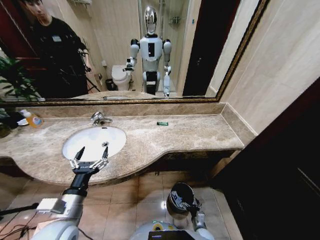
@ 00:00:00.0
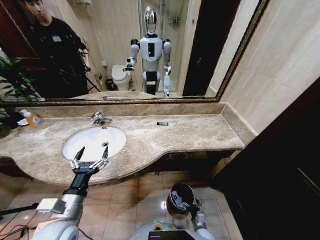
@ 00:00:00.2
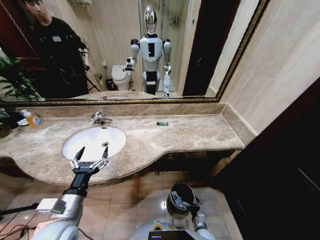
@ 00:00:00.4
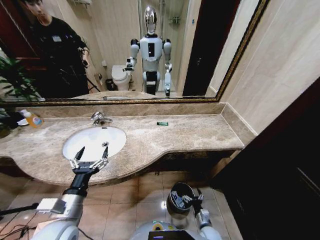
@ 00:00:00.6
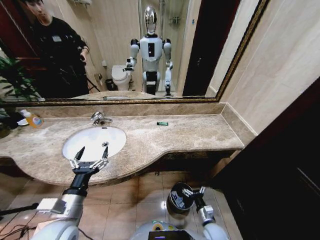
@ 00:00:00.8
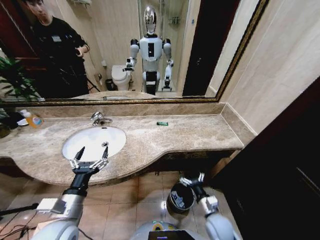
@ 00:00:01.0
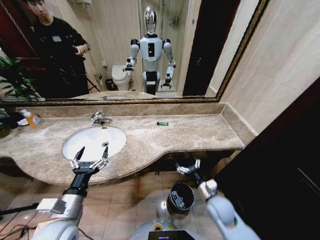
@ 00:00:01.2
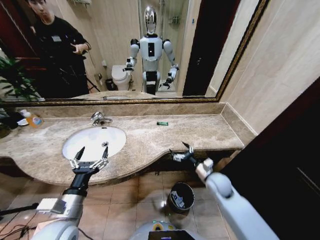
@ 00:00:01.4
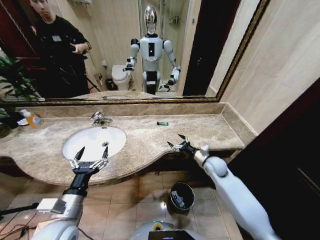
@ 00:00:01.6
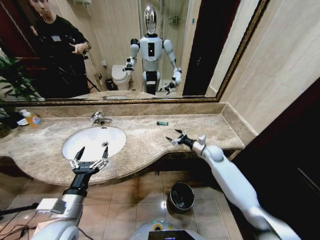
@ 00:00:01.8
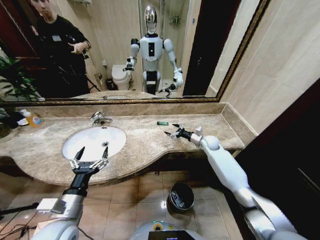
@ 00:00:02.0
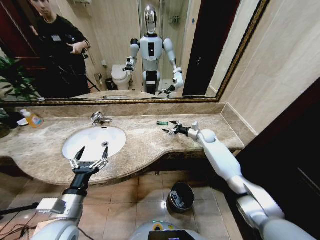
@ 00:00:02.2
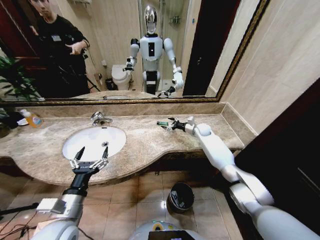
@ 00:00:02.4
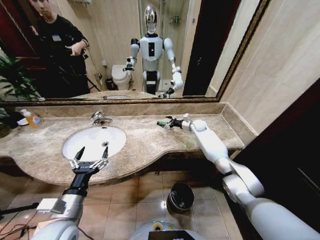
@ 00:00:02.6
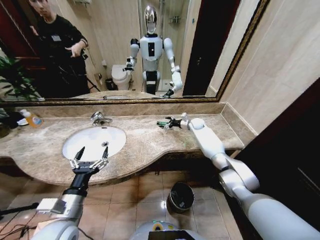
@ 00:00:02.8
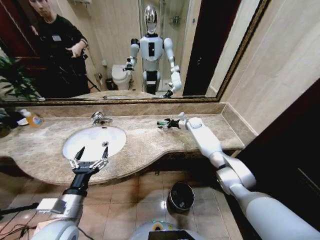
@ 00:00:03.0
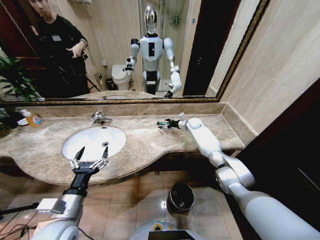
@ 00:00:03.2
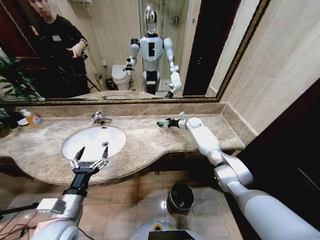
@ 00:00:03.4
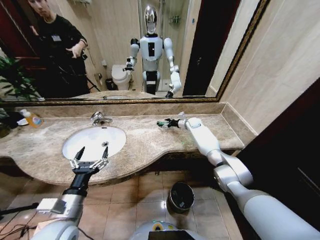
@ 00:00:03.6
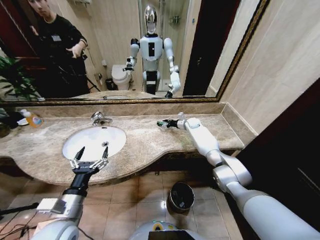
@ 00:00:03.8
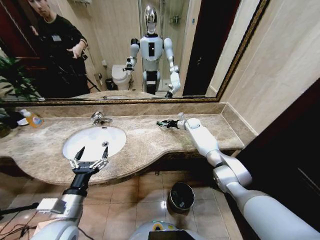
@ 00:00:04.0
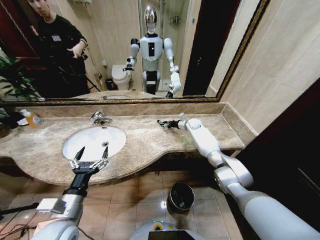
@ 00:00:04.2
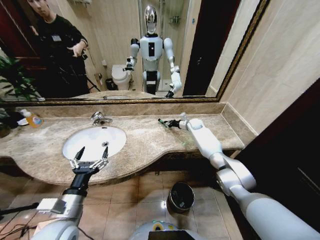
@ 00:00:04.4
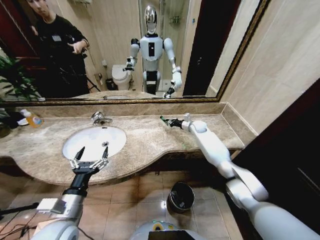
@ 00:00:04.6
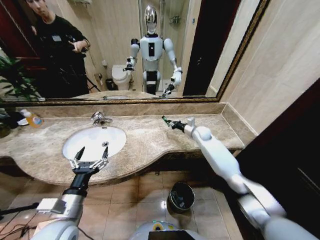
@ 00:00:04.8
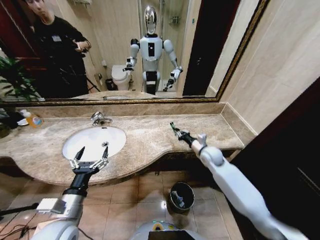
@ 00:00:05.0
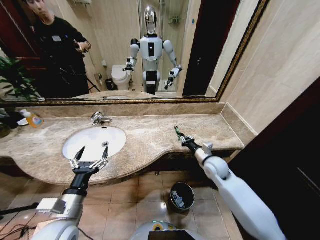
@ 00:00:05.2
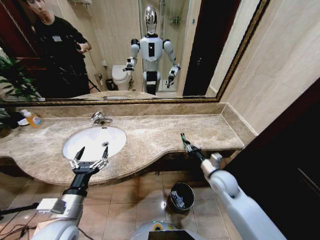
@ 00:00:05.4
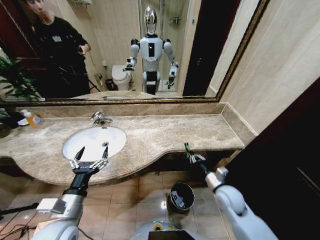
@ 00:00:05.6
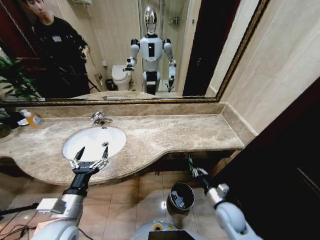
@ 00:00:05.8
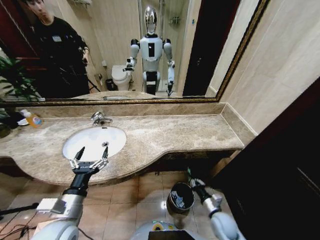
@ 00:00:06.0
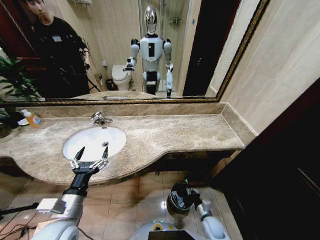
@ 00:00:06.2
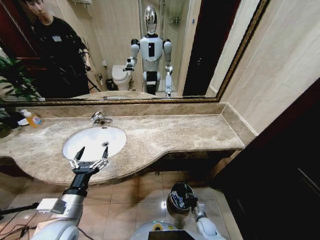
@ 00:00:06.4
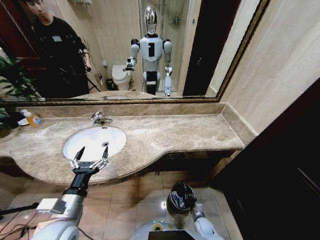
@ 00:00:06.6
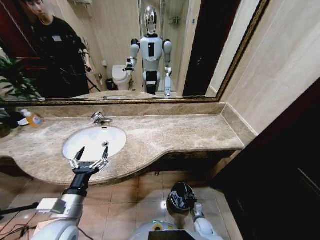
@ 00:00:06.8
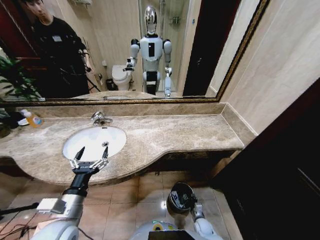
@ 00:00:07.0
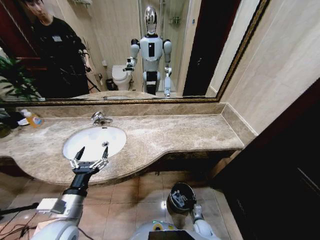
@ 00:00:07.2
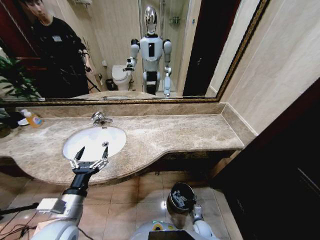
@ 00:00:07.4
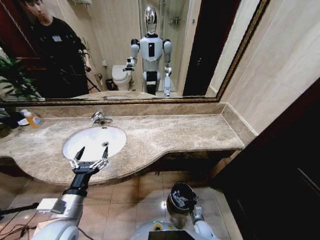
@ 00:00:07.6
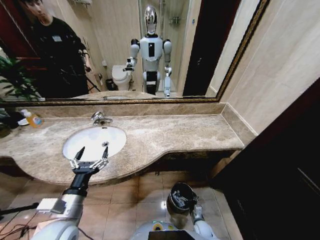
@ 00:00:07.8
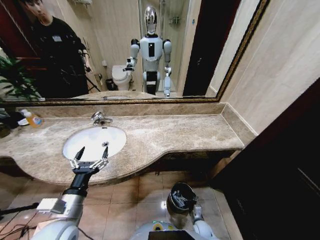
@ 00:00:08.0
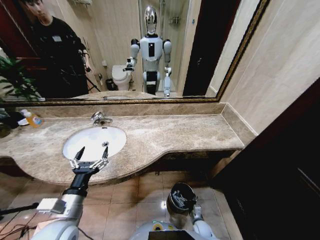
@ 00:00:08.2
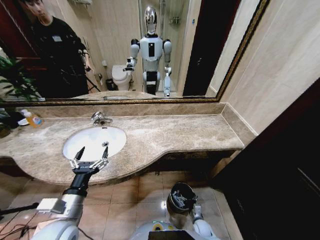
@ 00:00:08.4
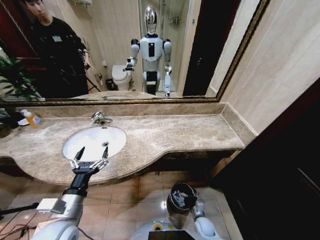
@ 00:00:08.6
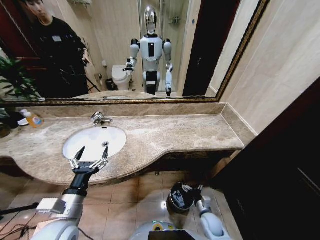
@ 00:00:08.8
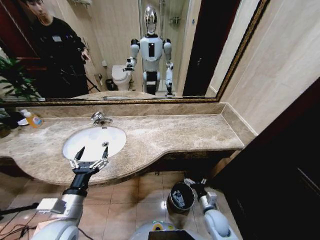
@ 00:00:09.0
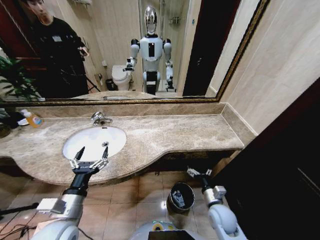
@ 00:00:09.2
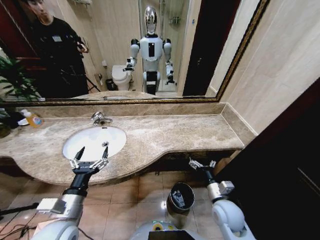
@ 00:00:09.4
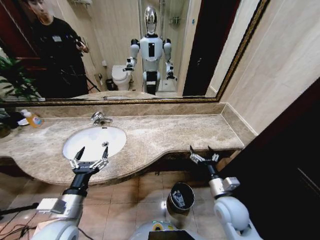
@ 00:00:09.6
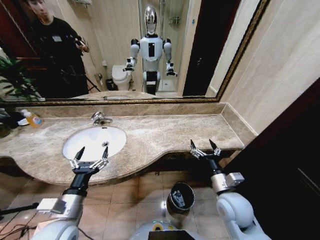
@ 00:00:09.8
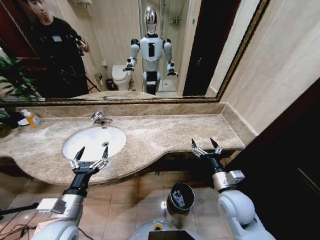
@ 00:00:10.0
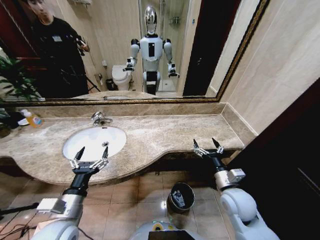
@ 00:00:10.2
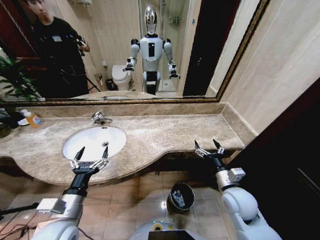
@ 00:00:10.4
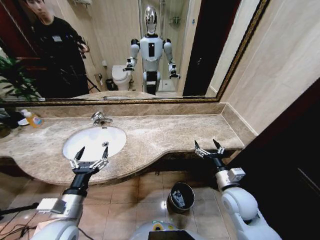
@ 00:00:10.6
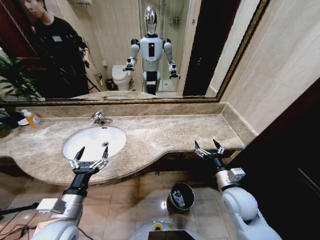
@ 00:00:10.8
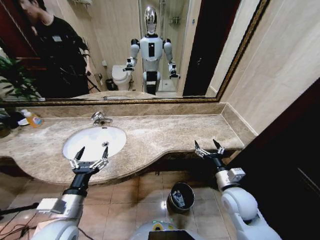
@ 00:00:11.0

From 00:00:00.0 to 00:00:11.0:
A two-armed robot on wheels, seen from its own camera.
Task of the whole recording: Pick up the trash from the sink and place it in the trash bin.
From 00:00:00.0 to 00:00:01.6: The right gripper shifts roughly 40 cm upward and forward.
From 00:00:01.6 to 00:00:03.2: The right gripper travels forward by about 25 cm.
From 00:00:03.2 to 00:00:04.8: The right gripper heads backward, covering approximately 10 cm, and closes its fingers.
From 00:00:04.8 to 00:00:06.2: The right gripper is displaced backward and downward by about 50 cm.
From 00:00:06.2 to 00:00:07.8: The right gripper goes about 10 cm downward, and opens up.
From 00:00:07.8 to 00:00:09.4: The right gripper moves upward, some 30 cm.
From 00:00:09.4 to 00:00:11.0: The right gripper moves upward, about 5 cm.

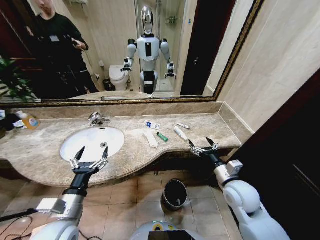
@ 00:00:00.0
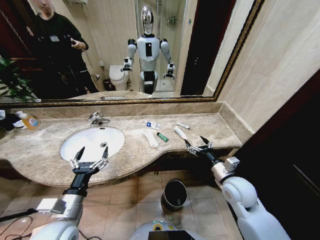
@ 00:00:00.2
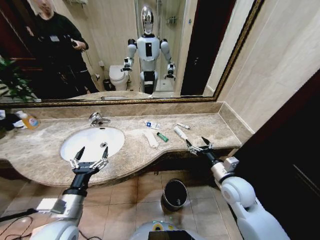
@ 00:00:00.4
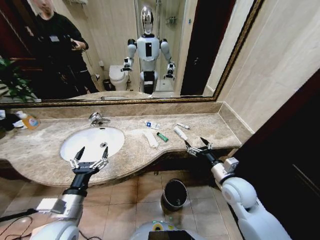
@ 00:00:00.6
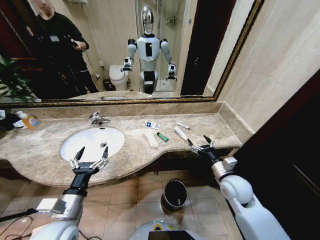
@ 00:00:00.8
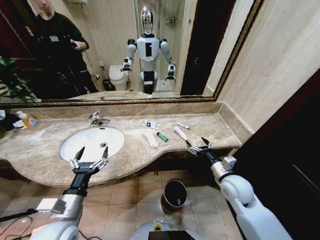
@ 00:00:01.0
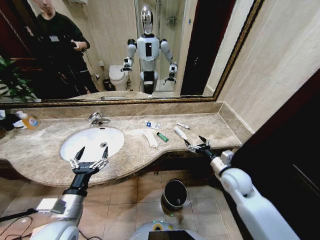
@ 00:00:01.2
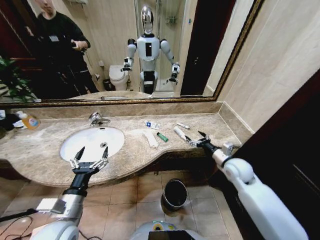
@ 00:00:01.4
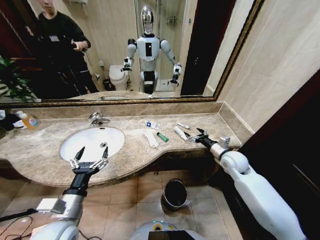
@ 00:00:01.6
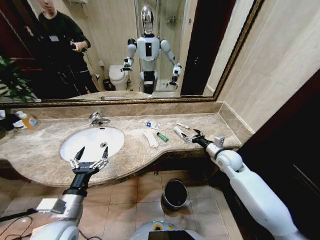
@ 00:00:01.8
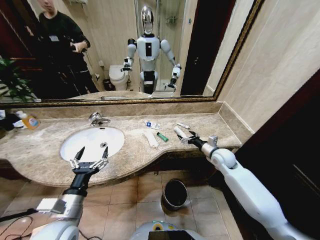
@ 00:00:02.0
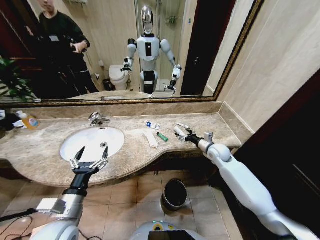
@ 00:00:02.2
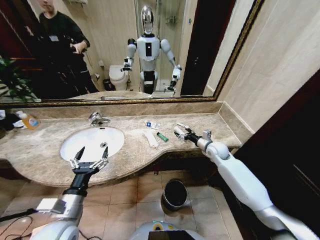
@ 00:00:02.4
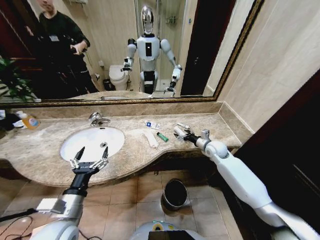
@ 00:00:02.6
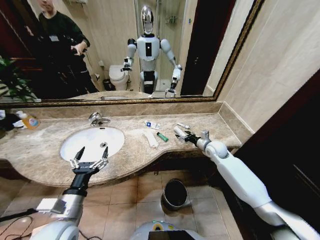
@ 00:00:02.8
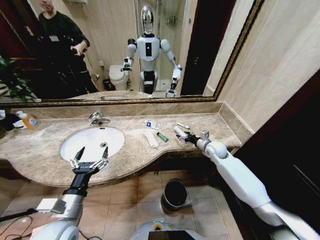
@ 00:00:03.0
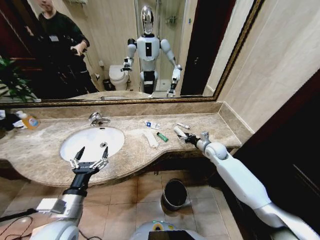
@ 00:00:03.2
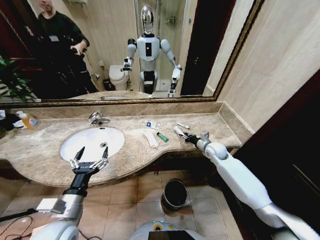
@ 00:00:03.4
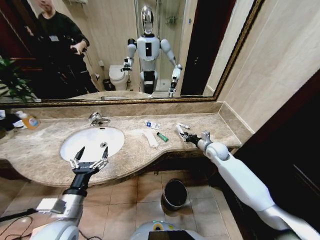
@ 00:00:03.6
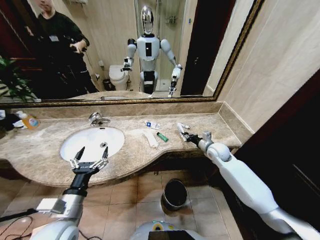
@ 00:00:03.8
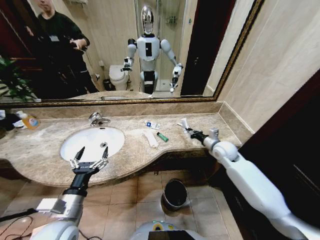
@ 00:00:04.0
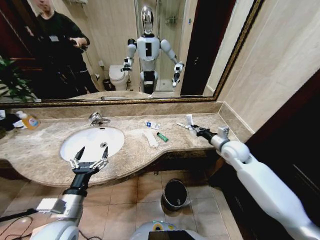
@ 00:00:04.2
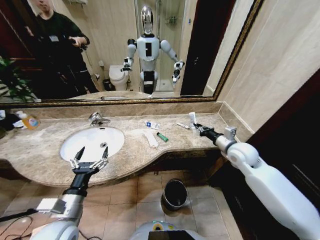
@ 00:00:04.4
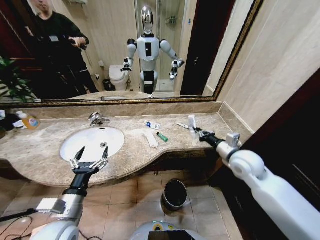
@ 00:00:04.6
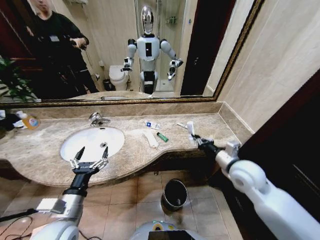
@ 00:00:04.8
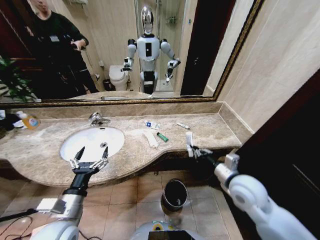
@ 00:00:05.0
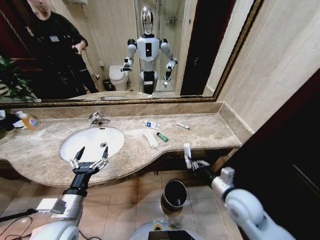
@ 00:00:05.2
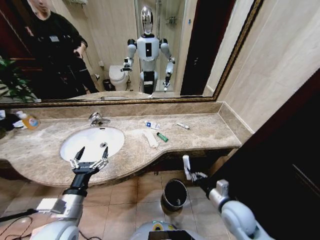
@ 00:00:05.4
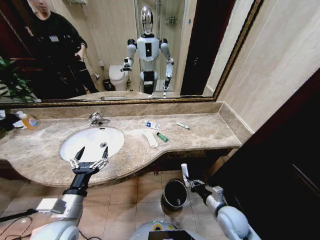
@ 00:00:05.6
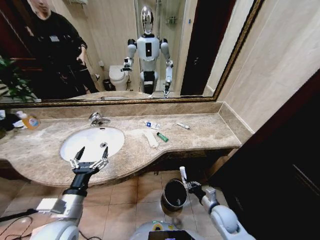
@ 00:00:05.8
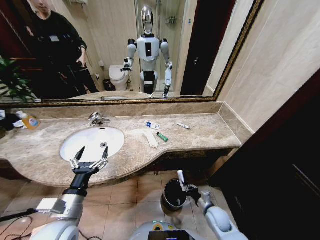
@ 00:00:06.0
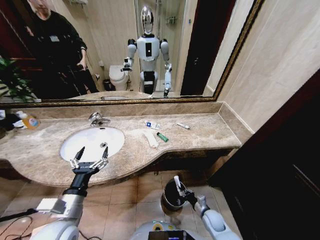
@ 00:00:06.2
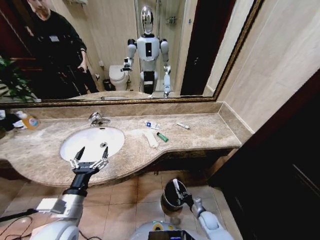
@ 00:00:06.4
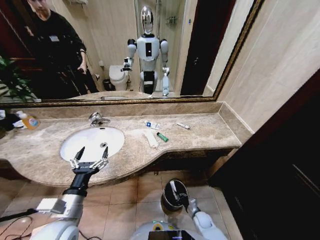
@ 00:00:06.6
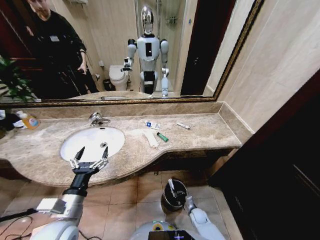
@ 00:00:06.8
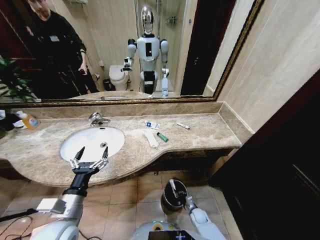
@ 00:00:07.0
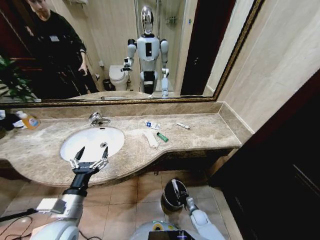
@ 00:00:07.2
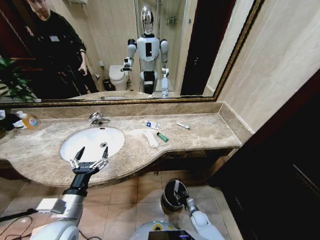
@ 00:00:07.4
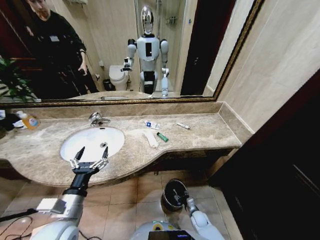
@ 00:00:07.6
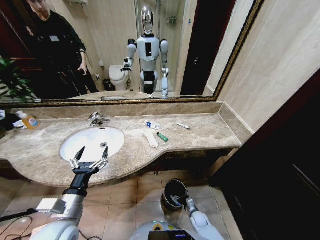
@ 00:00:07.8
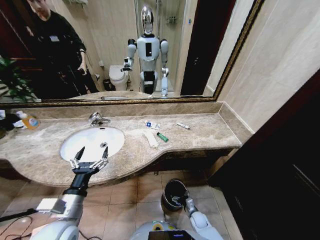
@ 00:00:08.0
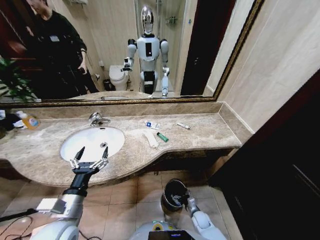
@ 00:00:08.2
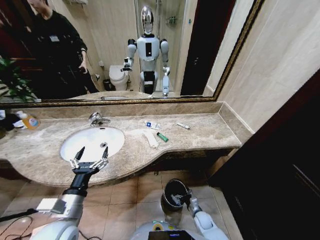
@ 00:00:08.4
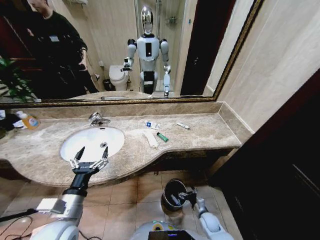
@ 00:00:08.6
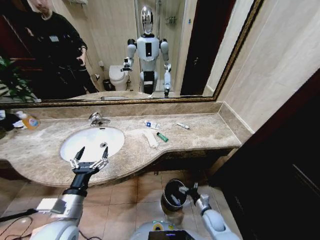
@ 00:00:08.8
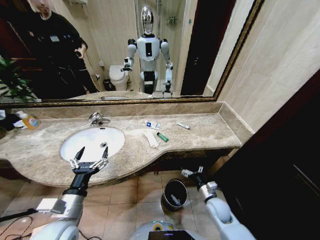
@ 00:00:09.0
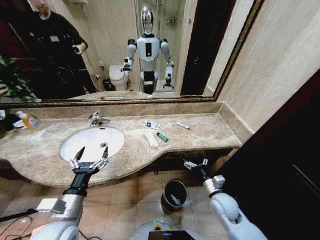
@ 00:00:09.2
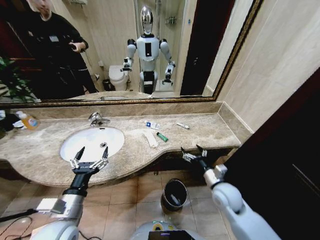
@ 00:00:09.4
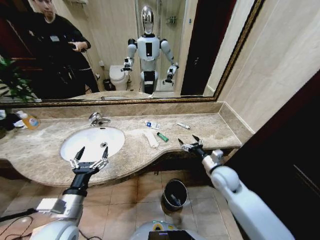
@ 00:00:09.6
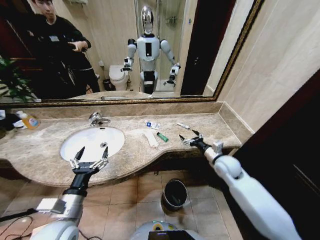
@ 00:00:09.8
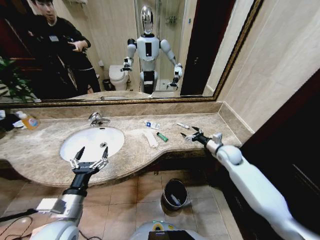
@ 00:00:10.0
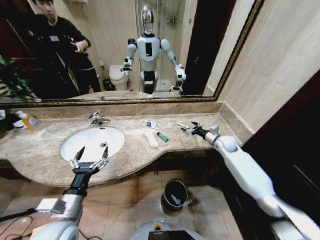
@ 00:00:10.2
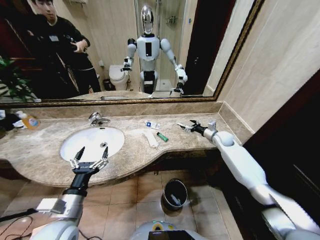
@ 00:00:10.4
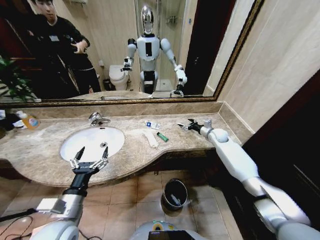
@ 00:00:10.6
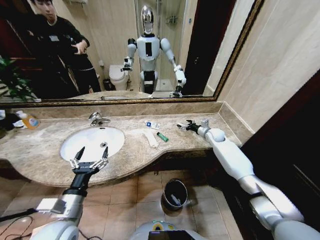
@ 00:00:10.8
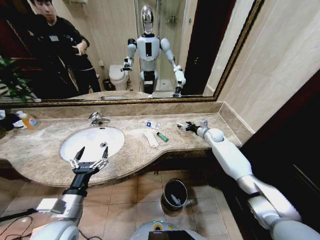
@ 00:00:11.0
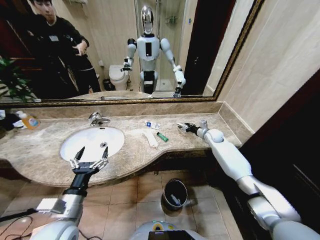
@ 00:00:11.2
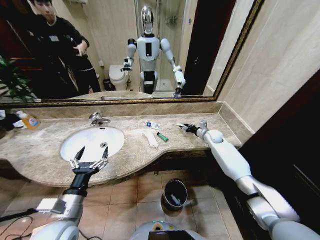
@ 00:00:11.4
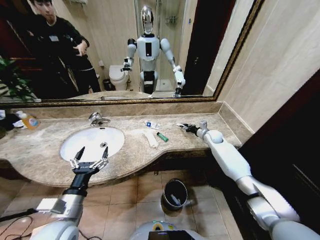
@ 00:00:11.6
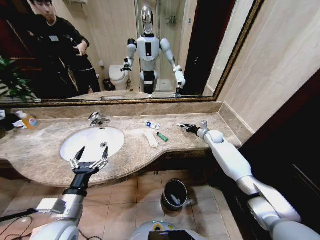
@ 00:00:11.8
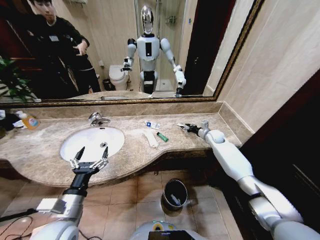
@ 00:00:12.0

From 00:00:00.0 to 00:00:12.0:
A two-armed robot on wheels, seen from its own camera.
Task of the whole recording: Pick up the trash from the sink and place it in the trash bin.
From 00:00:01.6 to 00:00:03.0: The right gripper heads forward, covering roughly 10 cm.
From 00:00:03.0 to 00:00:04.4: The right gripper shifts about 15 cm upward and backward, and closes.
From 00:00:04.4 to 00:00:06.0: The right gripper heads downward and backward, covering about 35 cm.
From 00:00:06.0 to 00:00:07.6: The right gripper moves downward, about 15 cm, and opens.
From 00:00:07.6 to 00:00:09.0: The right gripper moves upward, roughly 20 cm, and opens its fingers.
From 00:00:09.0 to 00:00:10.4: The right gripper shifts approximately 35 cm forward and upward.
From 00:00:10.4 to 00:00:12.0: The right gripper closes.
